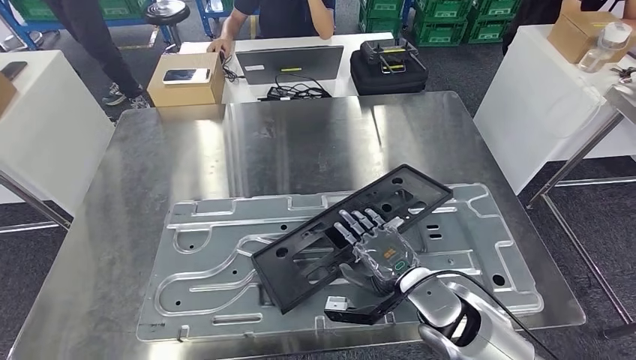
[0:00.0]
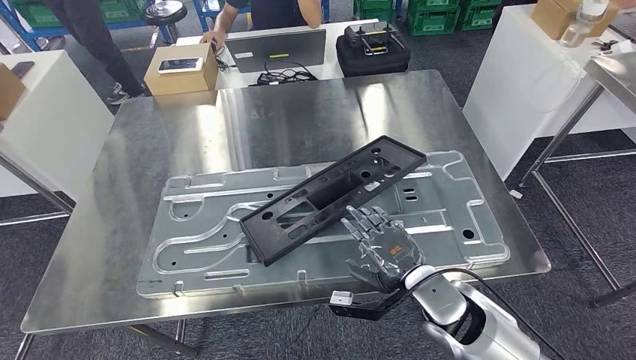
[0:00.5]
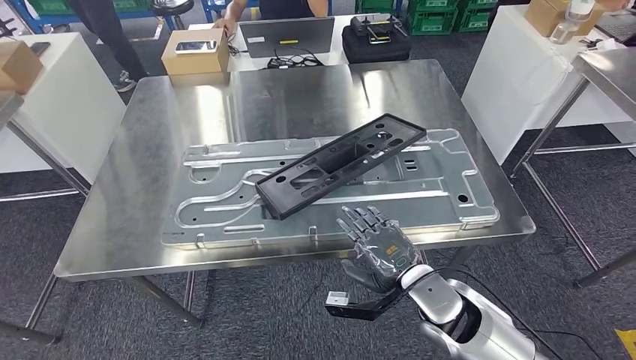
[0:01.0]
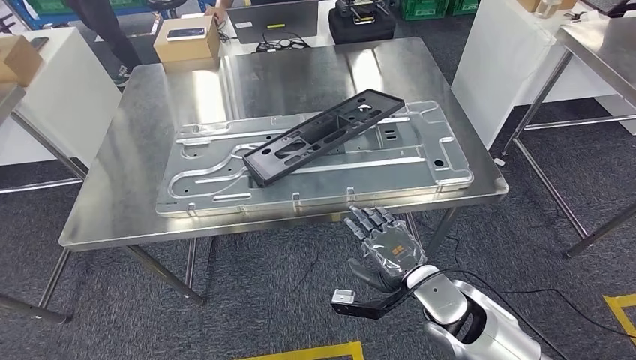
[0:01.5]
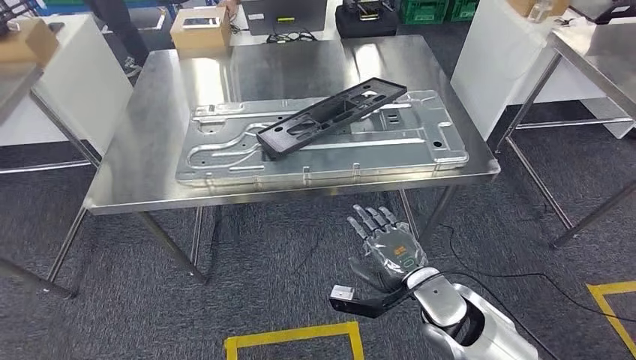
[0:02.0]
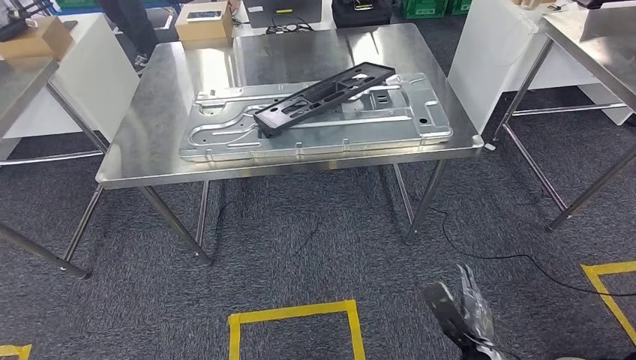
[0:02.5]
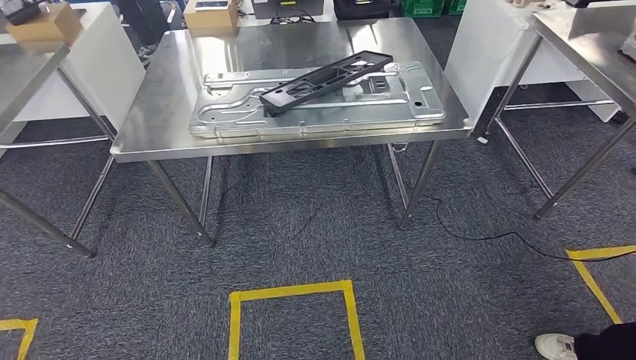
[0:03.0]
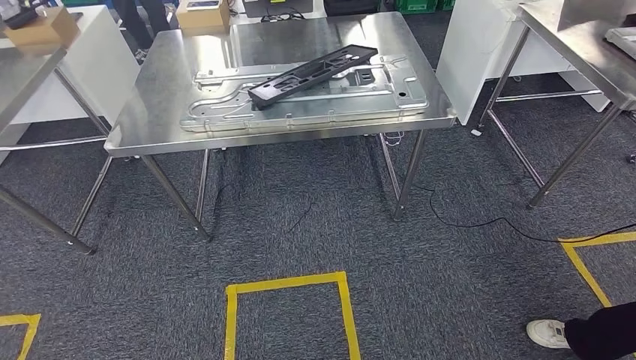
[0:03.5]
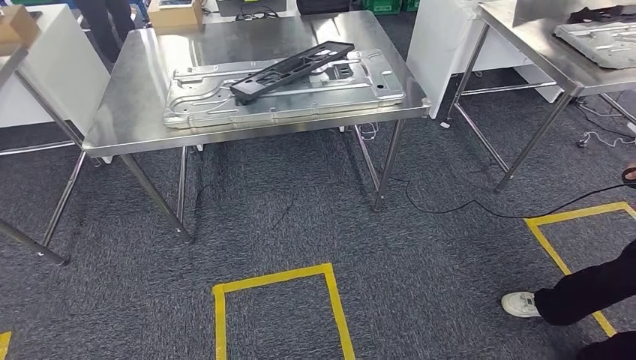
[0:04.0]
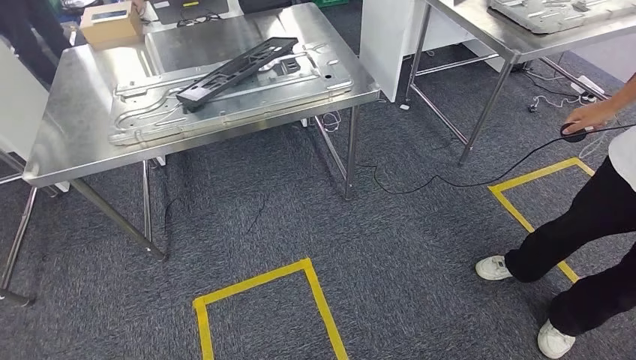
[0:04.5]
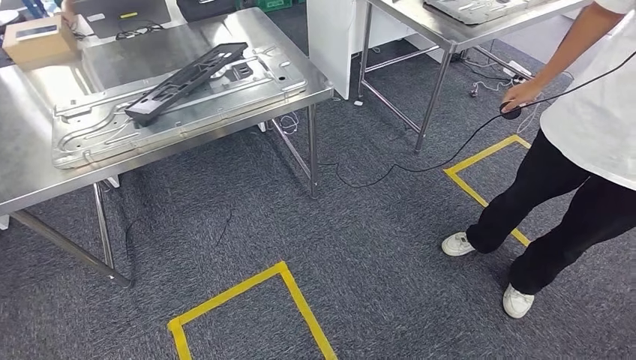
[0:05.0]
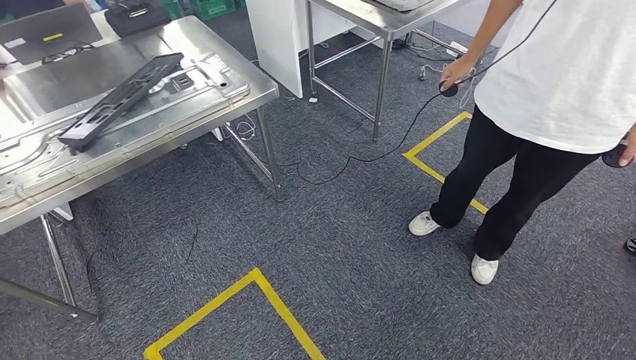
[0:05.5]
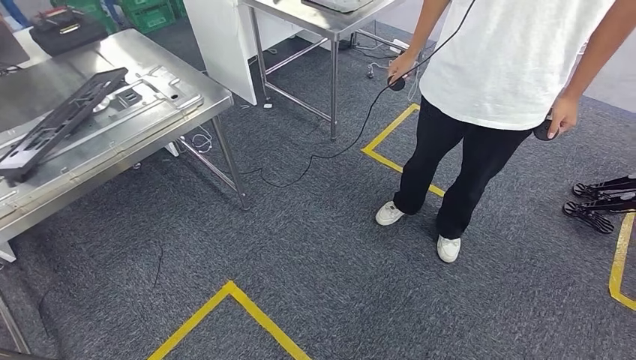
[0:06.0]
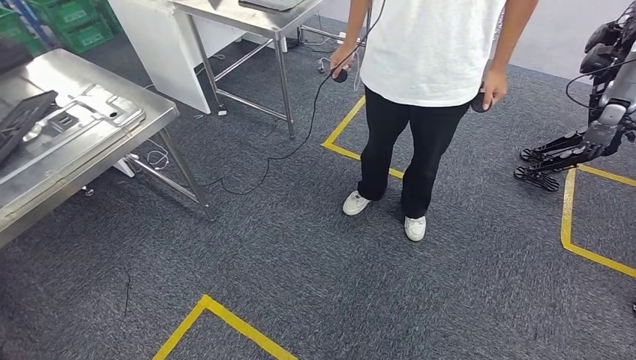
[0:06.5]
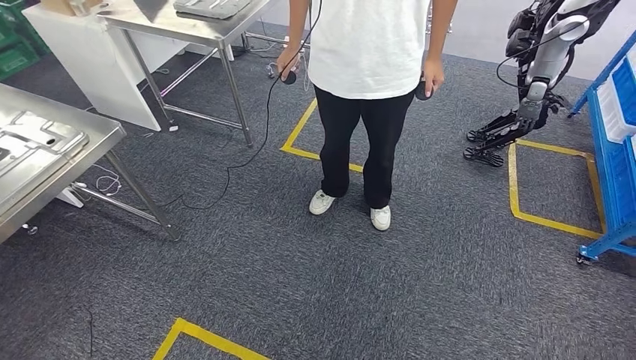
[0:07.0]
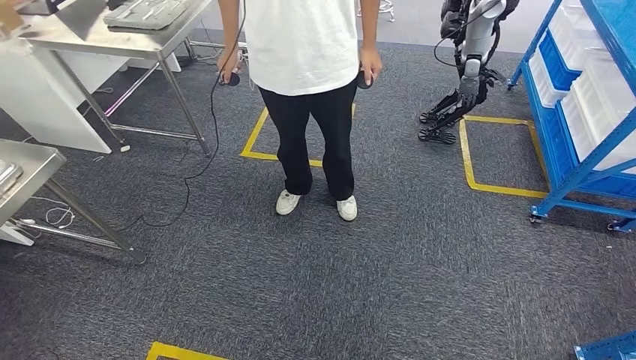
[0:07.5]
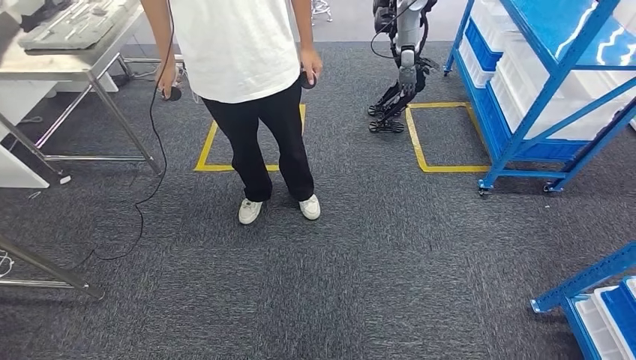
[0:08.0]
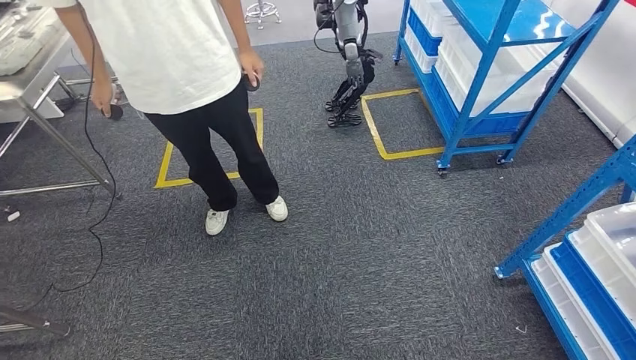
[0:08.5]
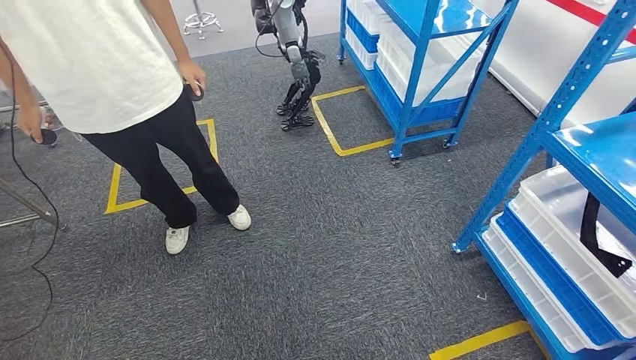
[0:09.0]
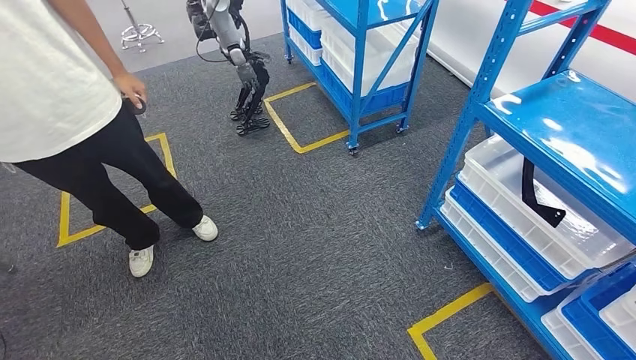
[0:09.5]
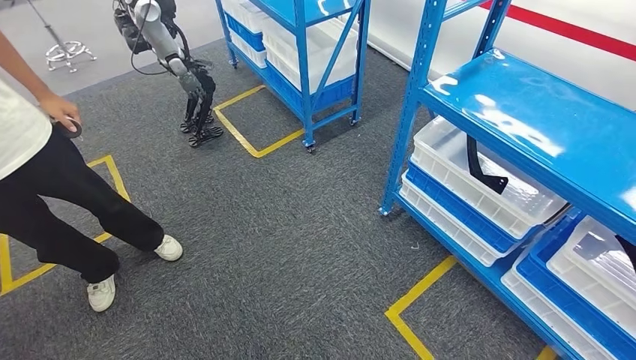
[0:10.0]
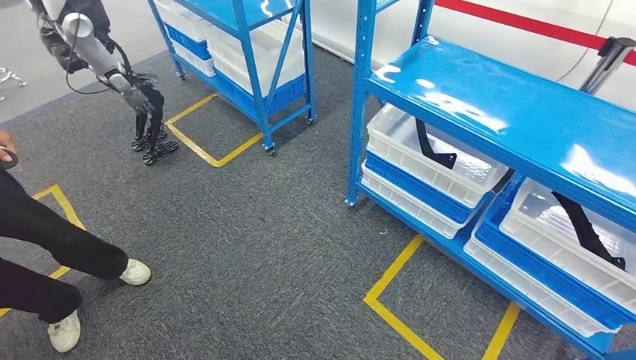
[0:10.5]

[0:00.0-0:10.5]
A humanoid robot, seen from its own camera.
Step, 0:00.0 to 0:02.5: Insert the large material into the corresponding slot on the workbench.

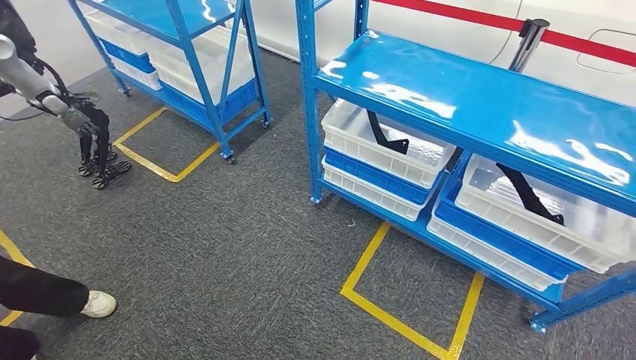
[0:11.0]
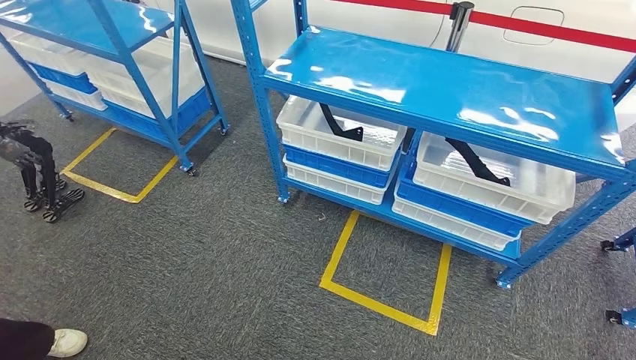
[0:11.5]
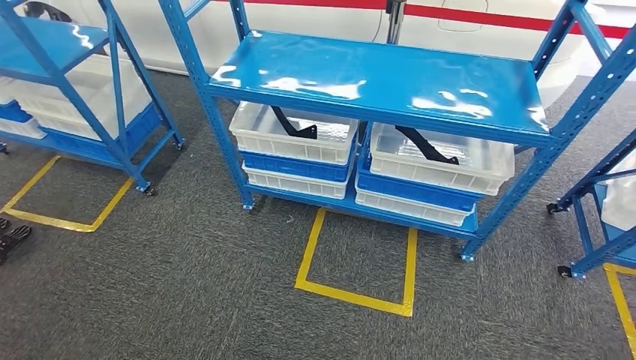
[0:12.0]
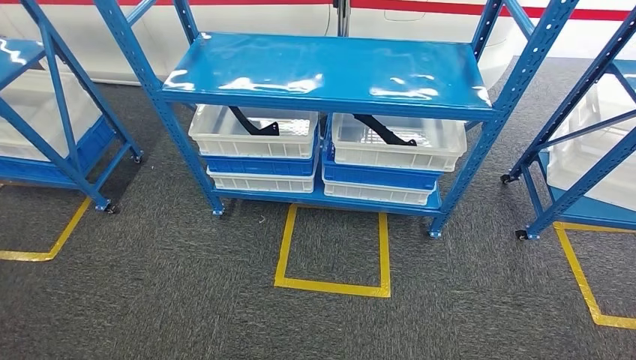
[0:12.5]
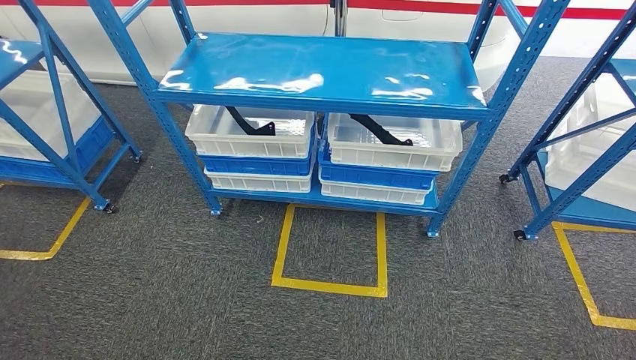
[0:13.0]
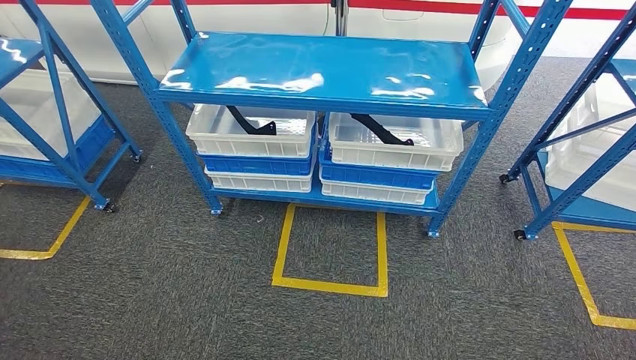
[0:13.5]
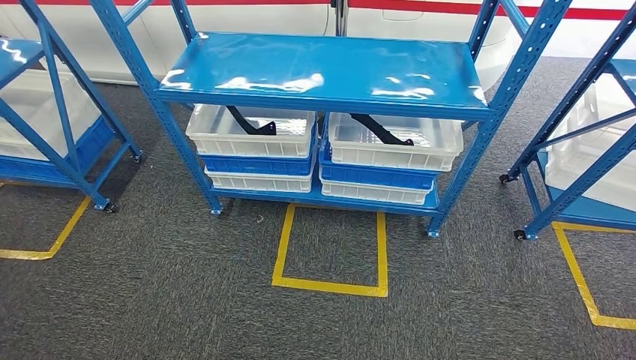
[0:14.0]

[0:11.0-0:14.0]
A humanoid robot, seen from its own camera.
Step, 0:11.0 to 0:13.5: Return to the initial position at the shelf.
0:12.5 to 0:14.0: There are only small adjustments of the hands.
